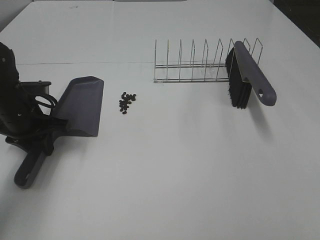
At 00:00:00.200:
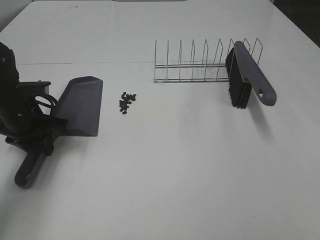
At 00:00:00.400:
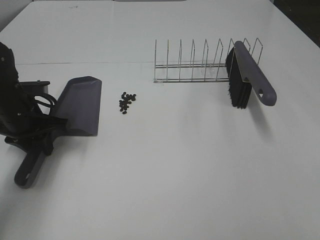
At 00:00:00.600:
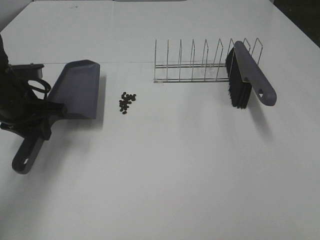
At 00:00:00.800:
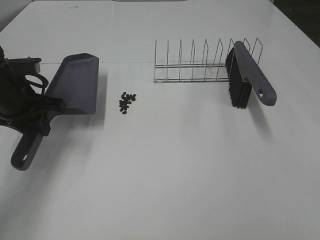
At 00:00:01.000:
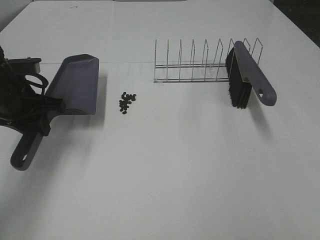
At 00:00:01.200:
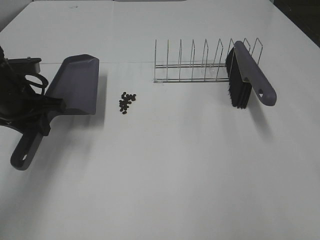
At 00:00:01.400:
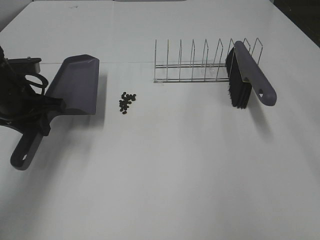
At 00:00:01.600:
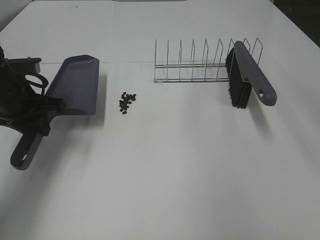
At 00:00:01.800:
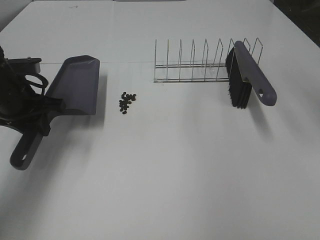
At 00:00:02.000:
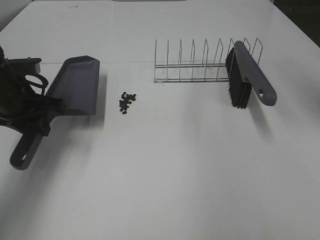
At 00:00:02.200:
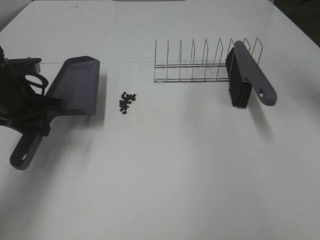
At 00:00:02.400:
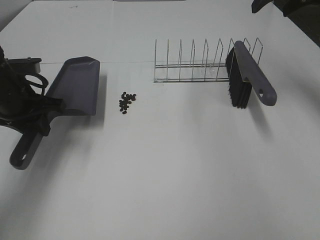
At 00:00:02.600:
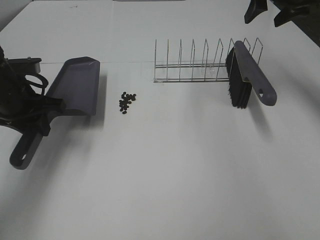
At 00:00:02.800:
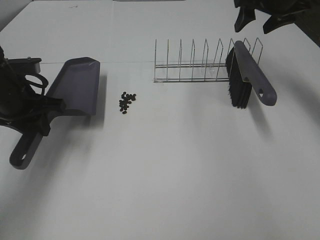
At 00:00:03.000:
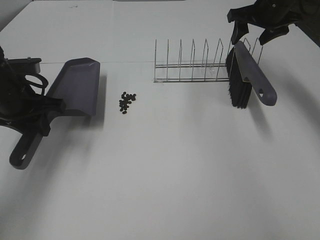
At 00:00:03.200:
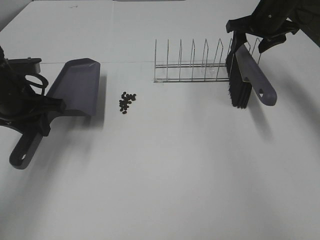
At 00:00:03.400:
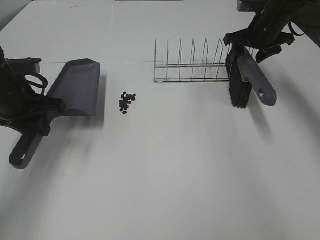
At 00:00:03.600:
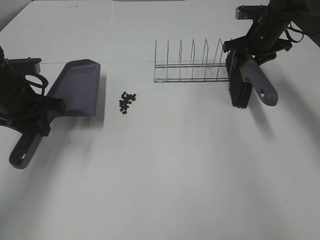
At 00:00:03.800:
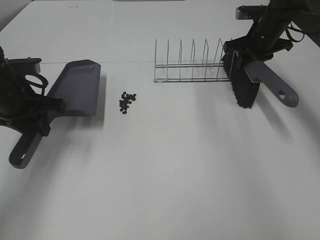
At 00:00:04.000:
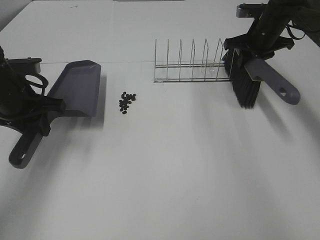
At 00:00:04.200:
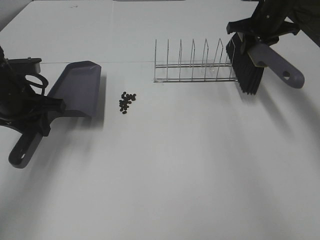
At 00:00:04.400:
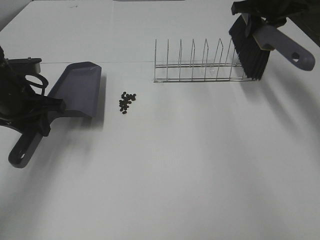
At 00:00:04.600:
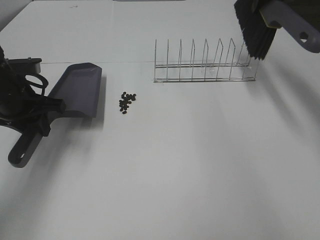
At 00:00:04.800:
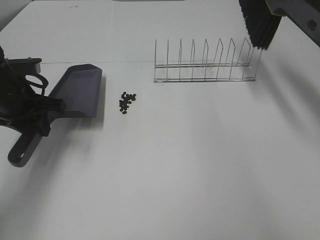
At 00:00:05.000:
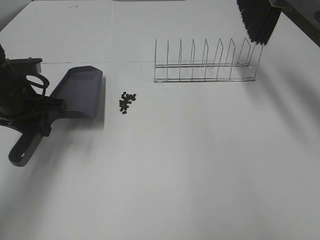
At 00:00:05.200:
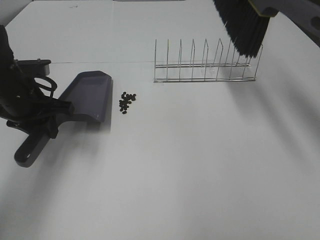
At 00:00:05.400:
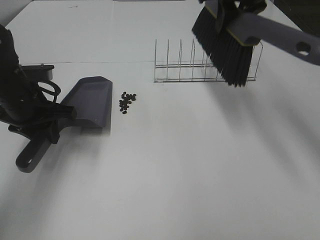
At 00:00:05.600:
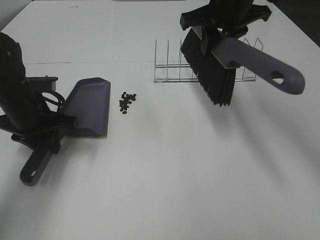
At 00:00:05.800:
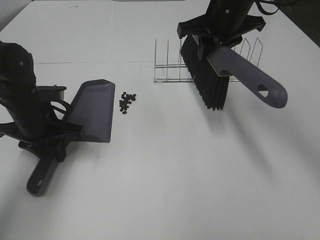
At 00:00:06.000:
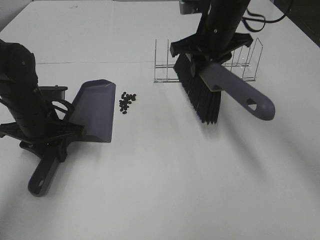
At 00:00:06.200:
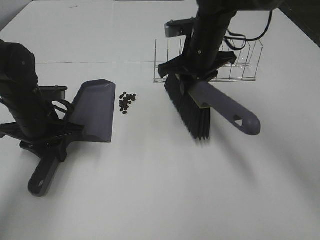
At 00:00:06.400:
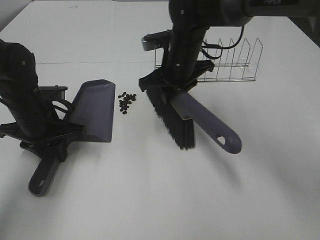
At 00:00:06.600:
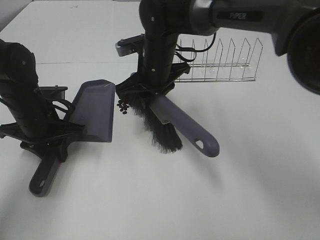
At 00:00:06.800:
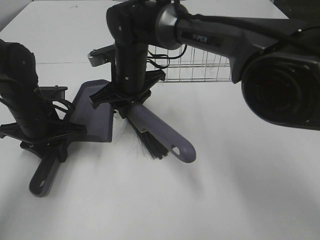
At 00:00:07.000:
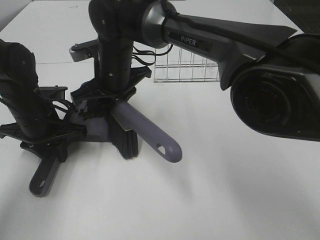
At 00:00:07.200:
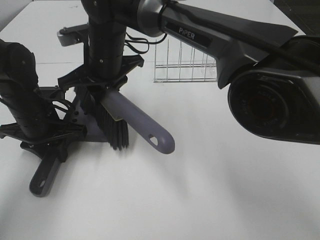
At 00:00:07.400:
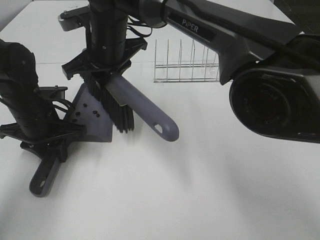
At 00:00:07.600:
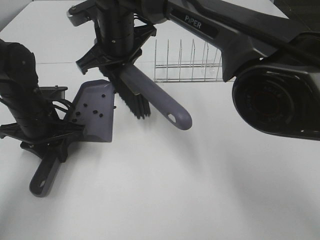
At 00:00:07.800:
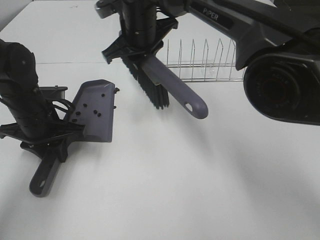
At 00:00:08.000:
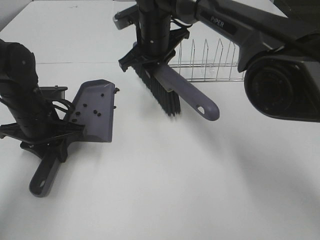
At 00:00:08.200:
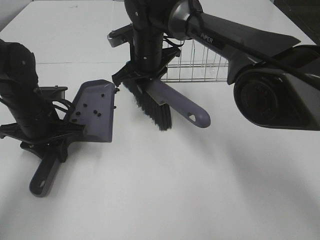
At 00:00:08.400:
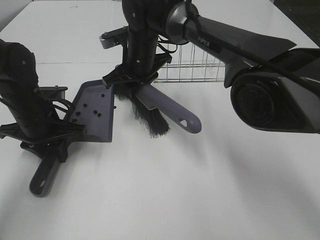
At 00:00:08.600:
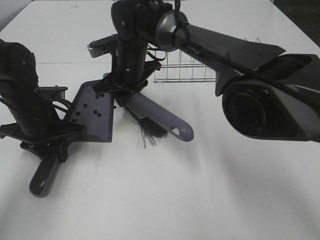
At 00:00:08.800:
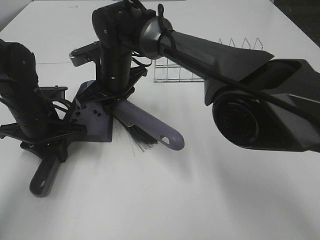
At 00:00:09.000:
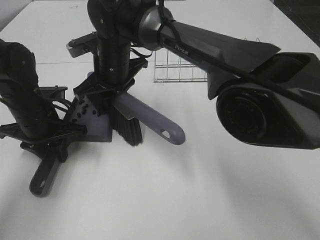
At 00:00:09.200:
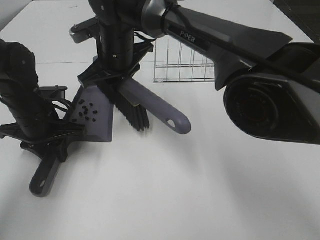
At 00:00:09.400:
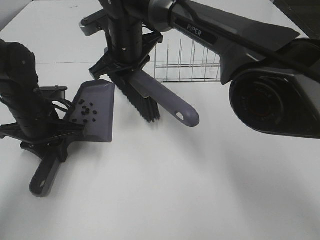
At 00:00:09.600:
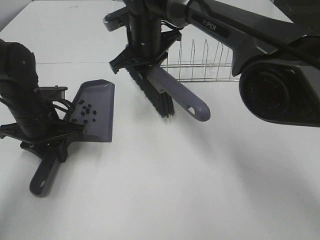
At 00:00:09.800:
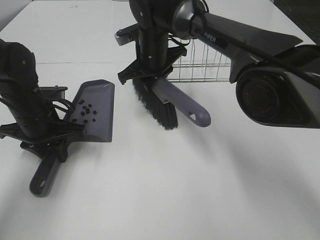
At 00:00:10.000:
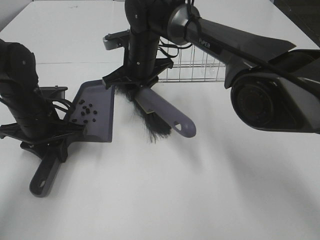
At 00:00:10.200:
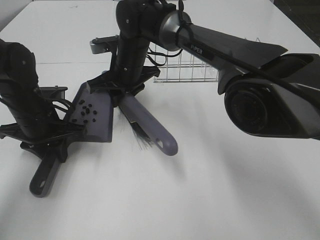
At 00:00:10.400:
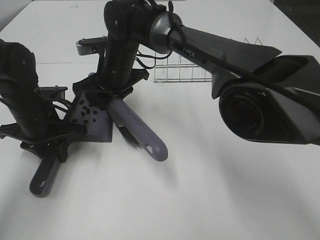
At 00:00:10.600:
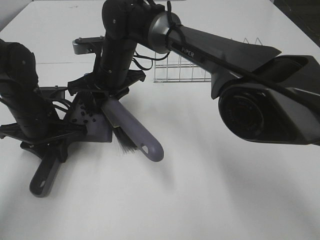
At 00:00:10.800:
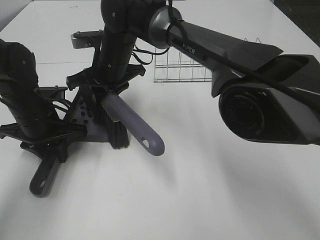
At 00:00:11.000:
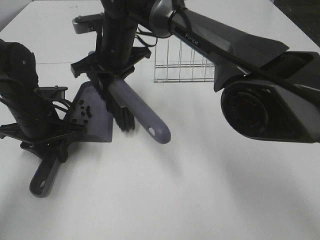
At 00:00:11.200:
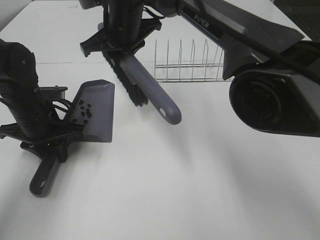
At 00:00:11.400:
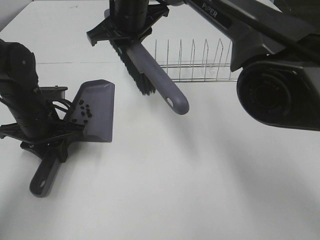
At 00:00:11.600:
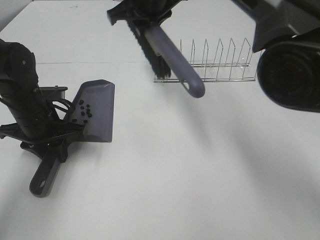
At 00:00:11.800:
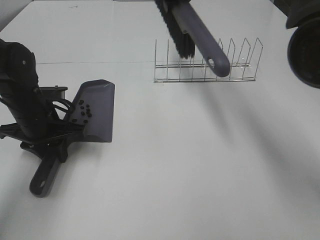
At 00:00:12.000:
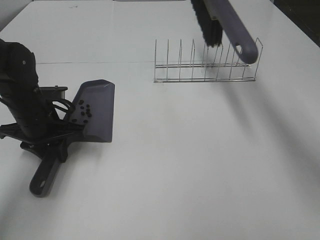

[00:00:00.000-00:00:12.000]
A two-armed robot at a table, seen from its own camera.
Task of the whole recording: Sweep Coffee Bean.
Step, 00:00:00.800 to 00:00:03.600: Right hand:grab the broom.
Step, 00:00:03.800 to 00:00:09.000: Right hand:sweep the coffee beans into the dustpan.
00:00:01.600 to 00:00:03.000: The right gripper is displaced forward and downward by approximately 30 cm.
00:00:03.000 to 00:00:04.400: The right gripper goes downward and returns, some 5 cm each way, and closes up.
00:00:04.400 to 00:00:06.000: The left gripper moves approximately 5 cm. Meanwhile the right gripper is displaced to the left and backward by roughly 15 cm.
00:00:06.000 to 00:00:07.600: The right gripper heads to the left, covering about 15 cm.
00:00:07.600 to 00:00:09.000: The right gripper travels downward by some 5 cm.
00:00:10.400 to 00:00:12.000: The right gripper shifts about 25 cm to the right and upward.

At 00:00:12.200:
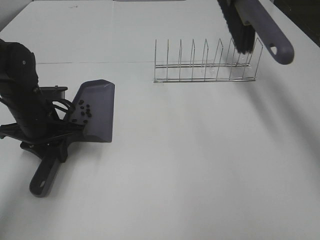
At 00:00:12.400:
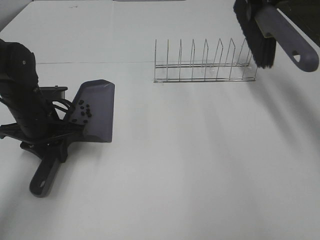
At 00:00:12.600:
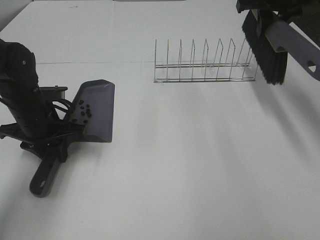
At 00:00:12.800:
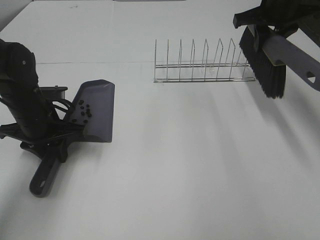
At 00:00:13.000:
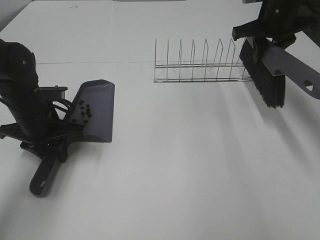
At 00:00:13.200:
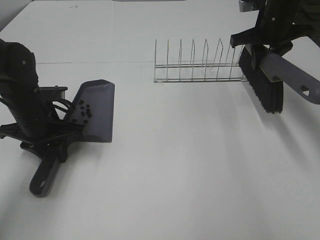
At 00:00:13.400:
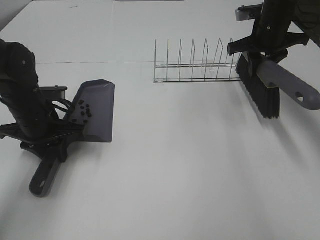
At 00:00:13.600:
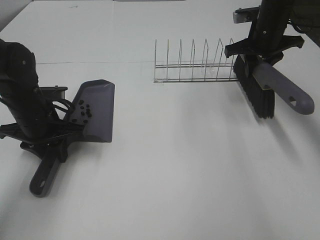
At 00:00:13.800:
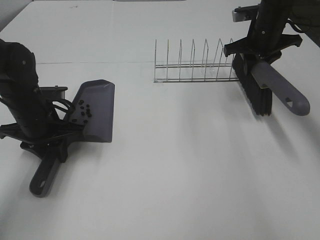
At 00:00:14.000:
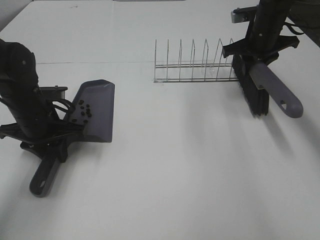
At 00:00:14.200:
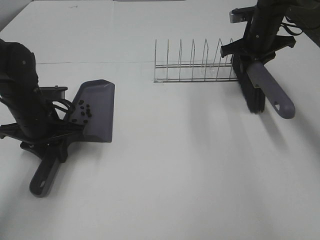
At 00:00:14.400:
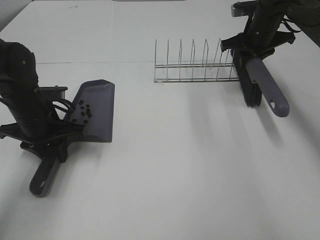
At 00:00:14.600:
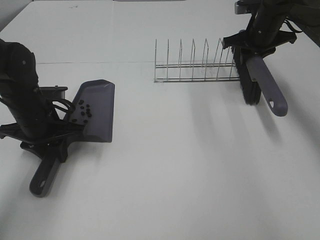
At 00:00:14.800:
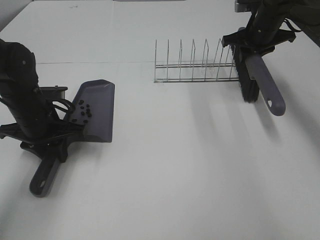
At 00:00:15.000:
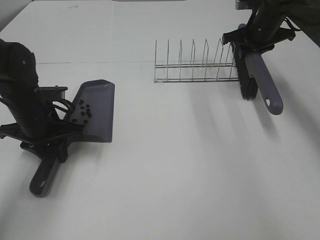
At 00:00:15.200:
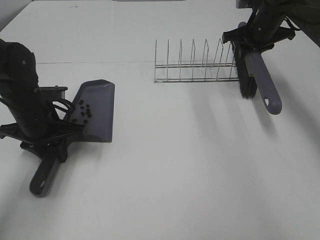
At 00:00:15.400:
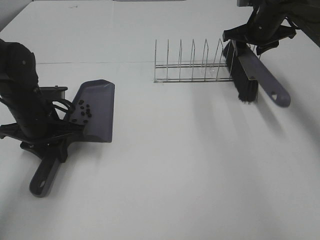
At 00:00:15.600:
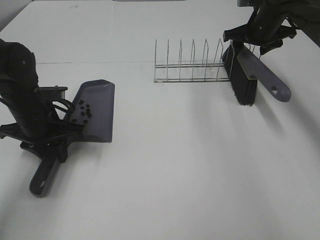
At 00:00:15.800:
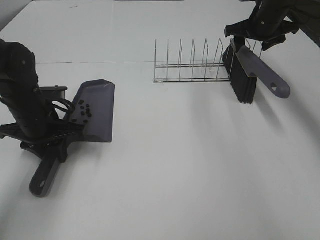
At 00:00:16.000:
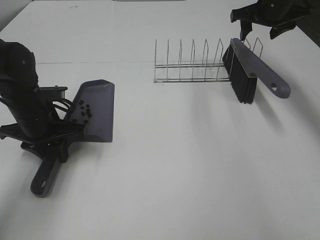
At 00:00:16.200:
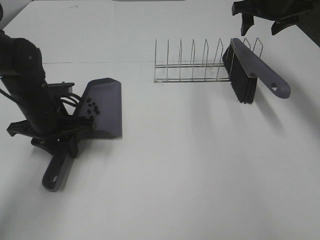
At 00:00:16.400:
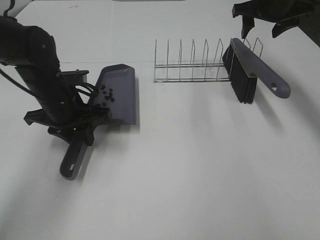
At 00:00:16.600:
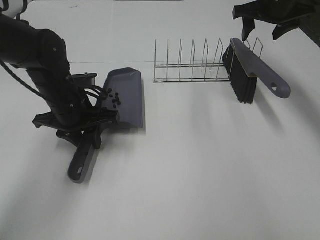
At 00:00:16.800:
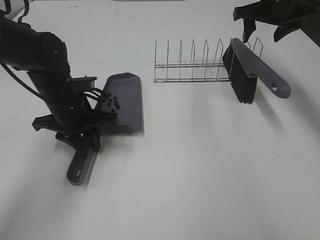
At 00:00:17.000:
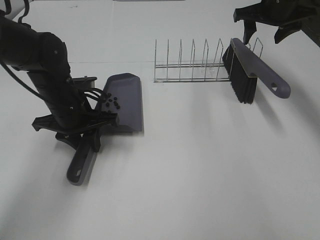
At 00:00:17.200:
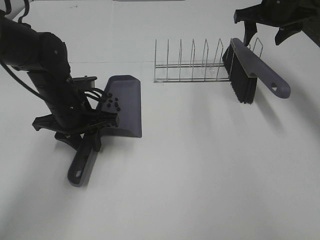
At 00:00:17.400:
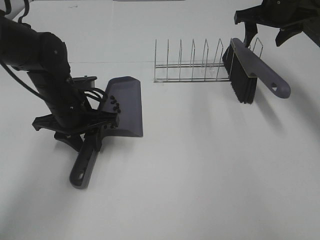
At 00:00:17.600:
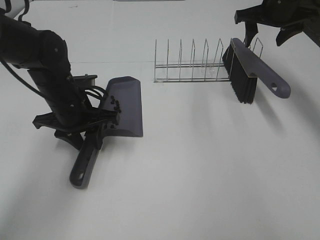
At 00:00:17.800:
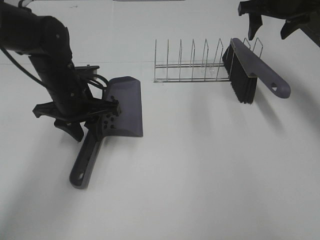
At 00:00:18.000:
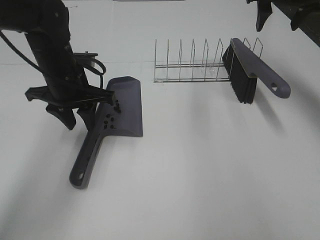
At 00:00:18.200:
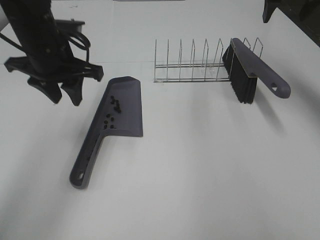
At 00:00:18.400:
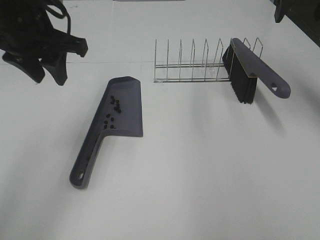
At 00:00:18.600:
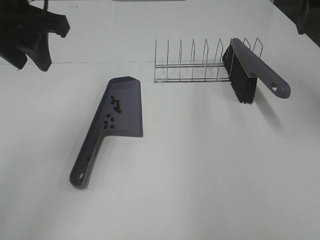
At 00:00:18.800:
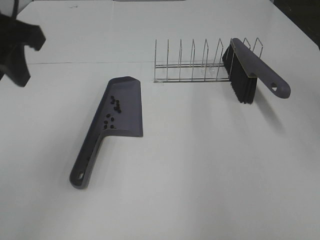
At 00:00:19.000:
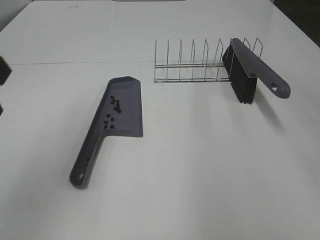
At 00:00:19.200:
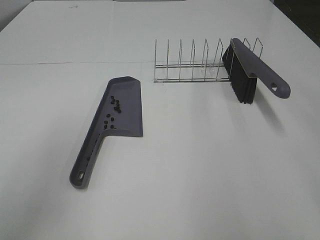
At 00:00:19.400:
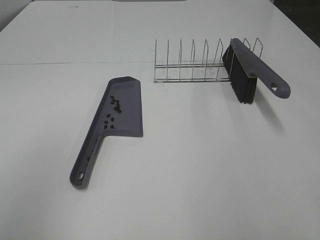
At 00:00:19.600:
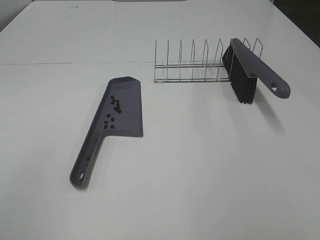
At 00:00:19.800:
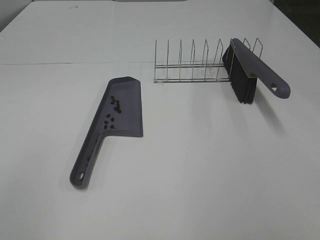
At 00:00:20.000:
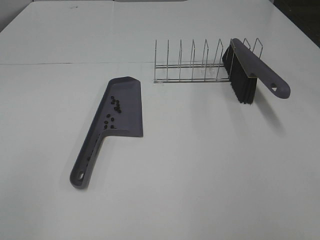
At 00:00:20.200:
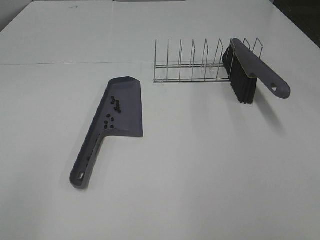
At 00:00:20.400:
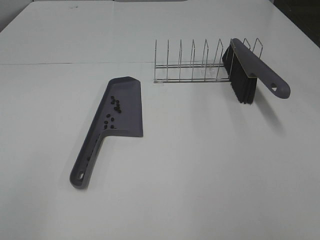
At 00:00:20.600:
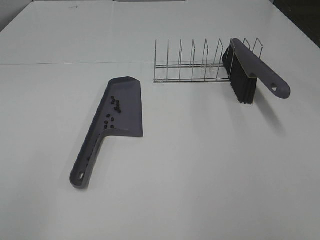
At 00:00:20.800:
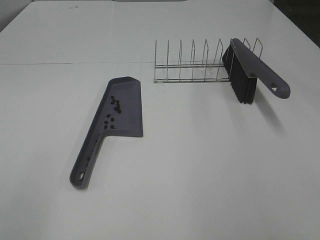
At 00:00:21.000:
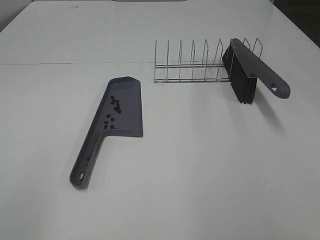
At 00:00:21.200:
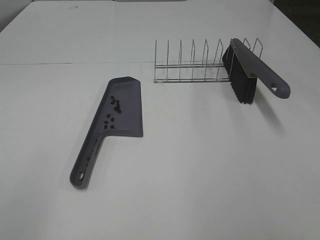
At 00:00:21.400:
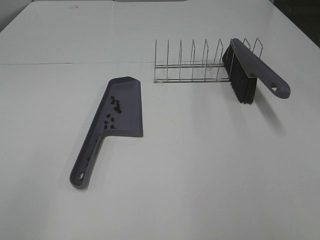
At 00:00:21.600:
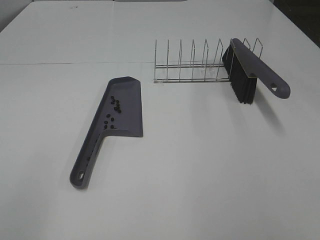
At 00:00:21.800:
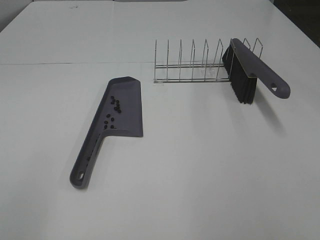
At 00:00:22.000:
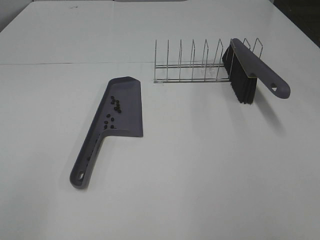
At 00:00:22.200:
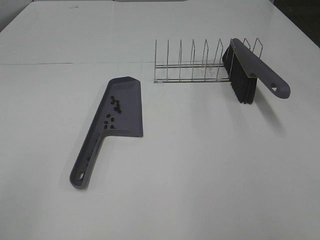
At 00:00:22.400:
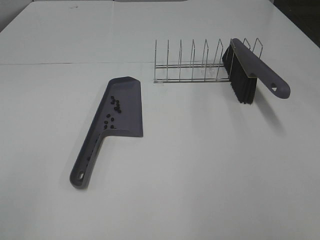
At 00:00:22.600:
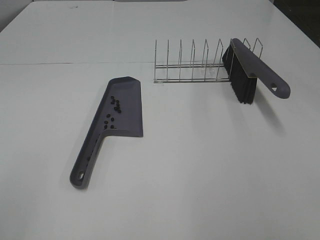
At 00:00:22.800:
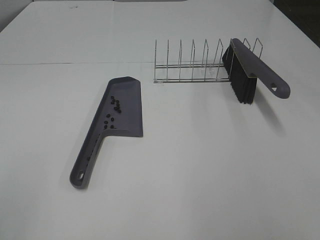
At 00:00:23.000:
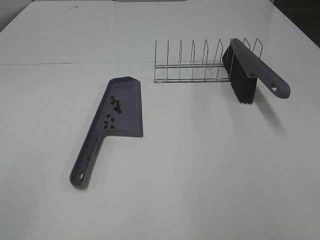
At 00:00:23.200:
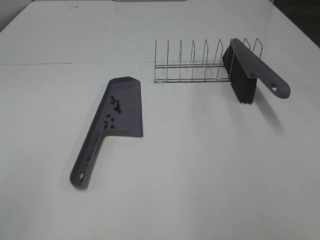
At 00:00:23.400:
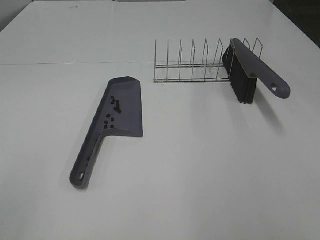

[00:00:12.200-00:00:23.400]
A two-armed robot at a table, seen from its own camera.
Task of the whole recording: Sweep Coffee Bean.
Step, 00:00:12.200 to 00:00:15.600: Right hand:place the broom on the rack.
Step, 00:00:15.800 to 00:00:17.800: Left hand:place the dustpan on the table.
00:00:12.200 to 00:00:13.800: The right gripper is displaced downward and to the right by approximately 15 cm.
00:00:13.800 to 00:00:15.400: The right gripper opens up.
00:00:15.400 to 00:00:17.000: The left gripper heads to the right, covering some 5 cm. The right gripper moves upward, some 5 cm, and opens up.
00:00:17.000 to 00:00:18.600: The right gripper goes about 20 cm backward and upward, while the left gripper goes some 20 cm upward.
00:00:18.600 to 00:00:20.200: The grippers both shift backward by some 35 cm.
